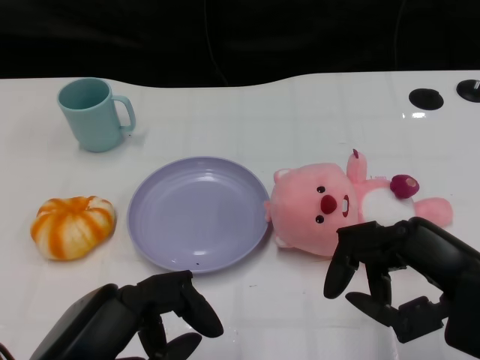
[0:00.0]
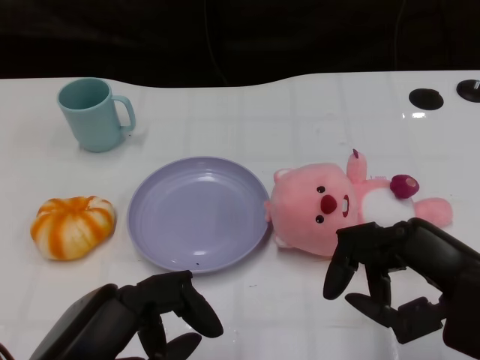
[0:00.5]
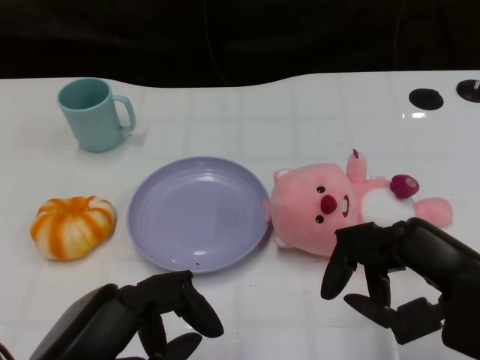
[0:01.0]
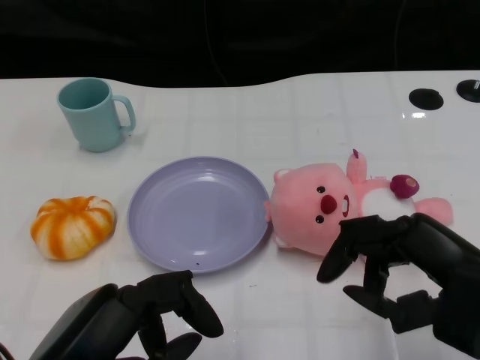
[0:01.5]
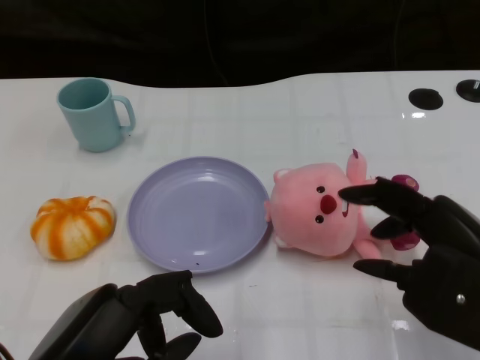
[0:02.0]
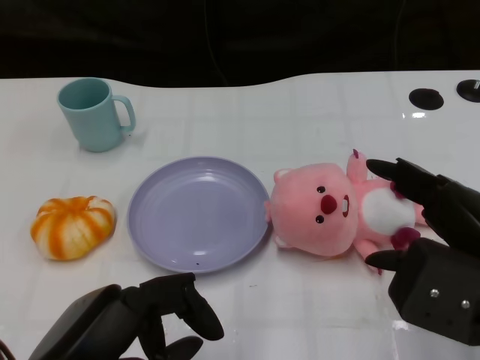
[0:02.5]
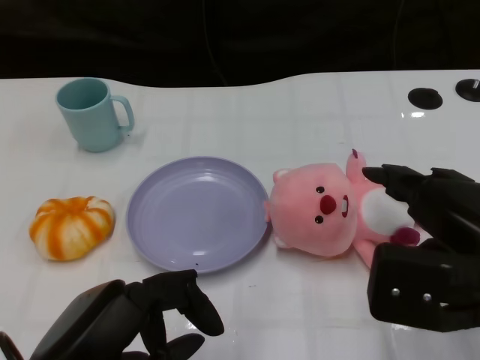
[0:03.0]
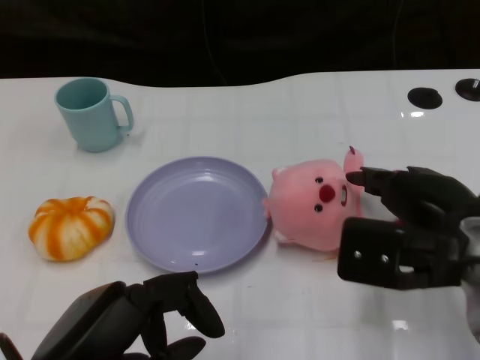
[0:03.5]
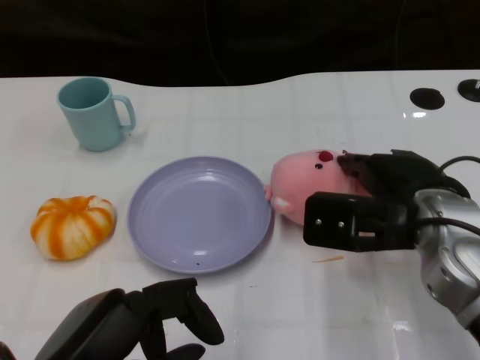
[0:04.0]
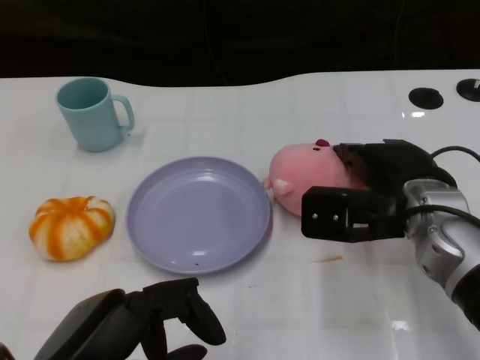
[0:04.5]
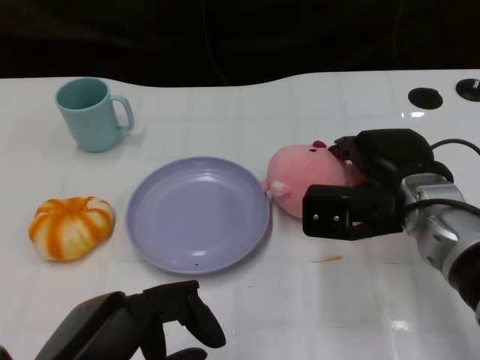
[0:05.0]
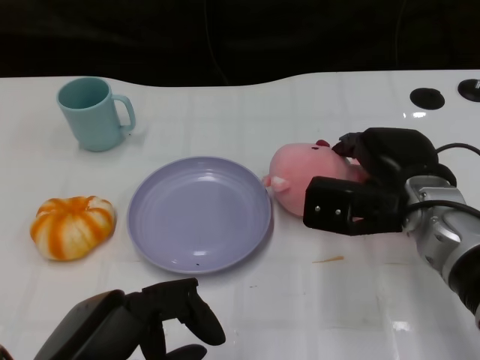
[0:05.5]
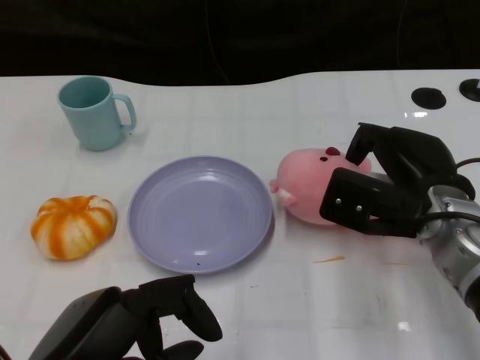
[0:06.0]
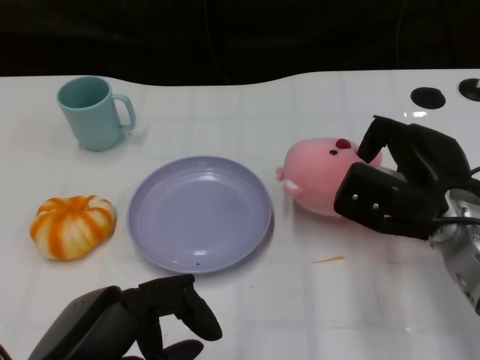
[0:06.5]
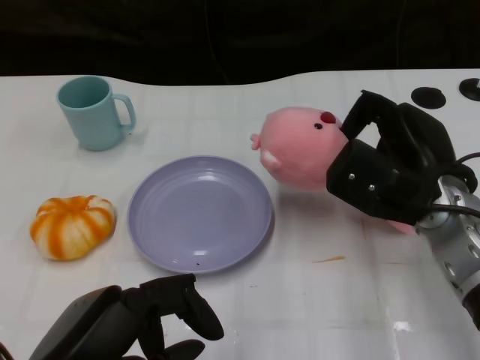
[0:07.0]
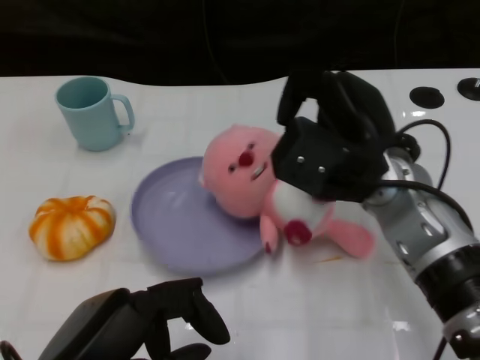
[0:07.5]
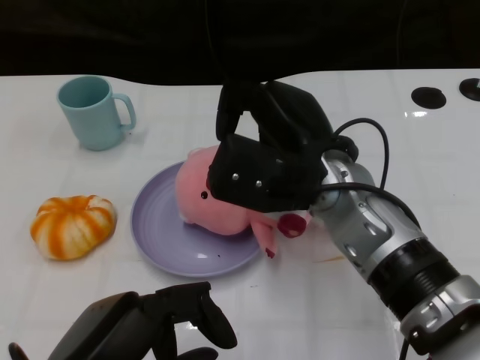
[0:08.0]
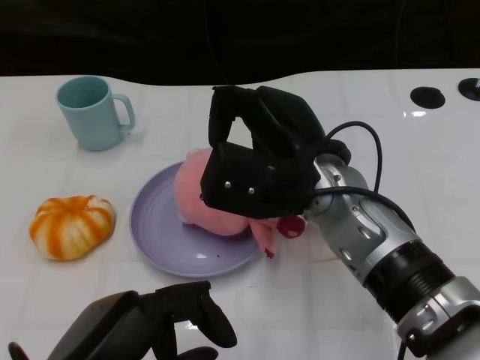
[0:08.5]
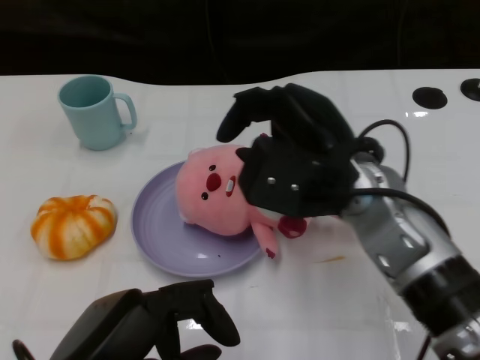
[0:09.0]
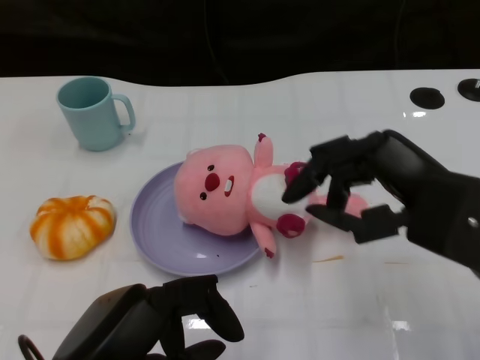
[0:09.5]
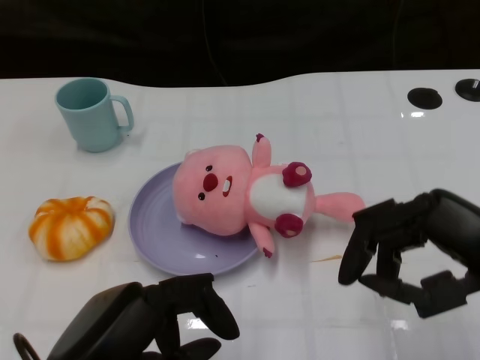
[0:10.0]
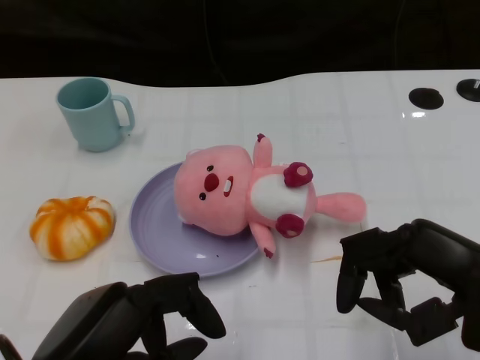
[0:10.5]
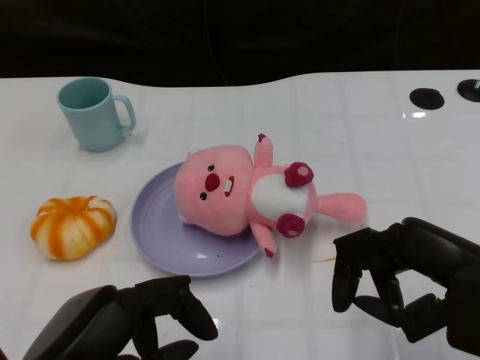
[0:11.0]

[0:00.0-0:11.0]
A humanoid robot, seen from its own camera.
Task of the whole recording: Pick up the doll on the other side of the plate and place it into the plate.
Step, 0:01.5 to 0:06.5: Grasp the pink doll with the right gripper.
Step, 0:07.0 to 0:10.0: Place the pink doll into the plate with the right gripper.
0:02.0 to 0:03.5: The right hand goes about 5 cm forward.
0:03.5 to 0:05.5: The right hand goes approximately 10 cm forward.
0:05.5 to 0:07.5: The right hand is displaced upward by some 5 cm.
0:09.0 to 0:11.0: The right hand travels to the right and backward by some 15 cm.

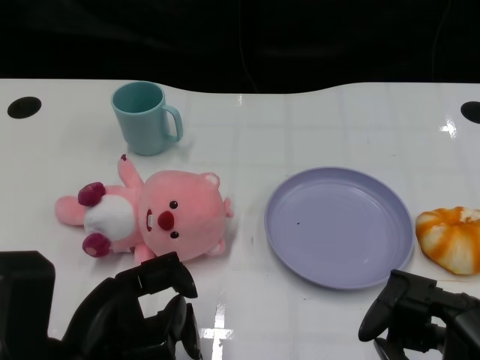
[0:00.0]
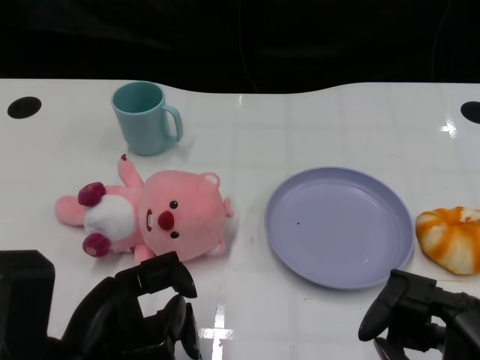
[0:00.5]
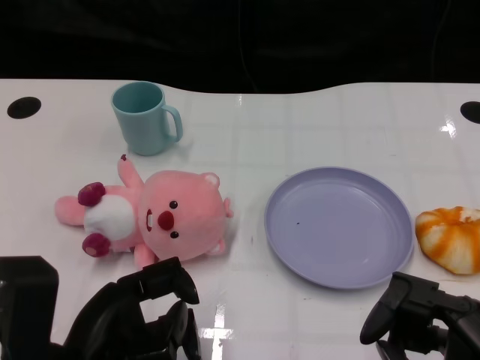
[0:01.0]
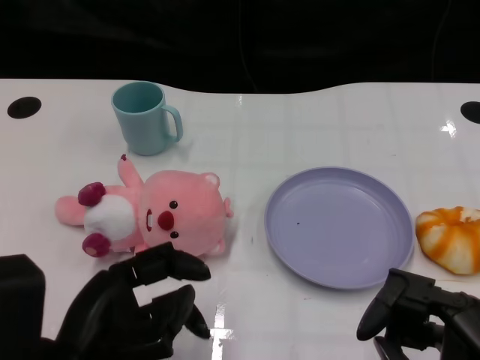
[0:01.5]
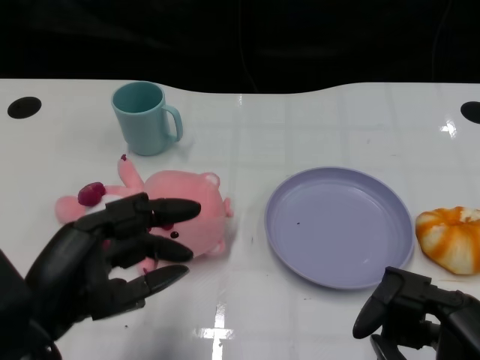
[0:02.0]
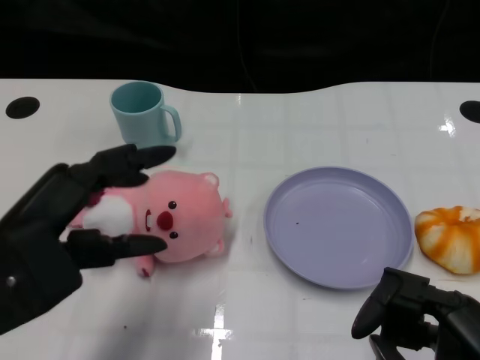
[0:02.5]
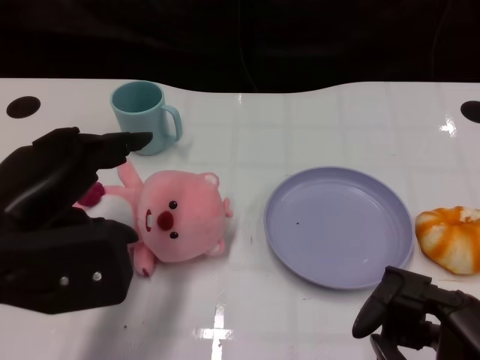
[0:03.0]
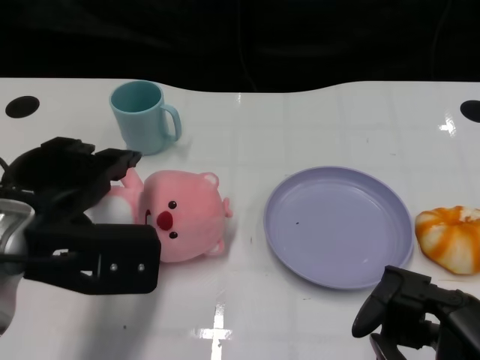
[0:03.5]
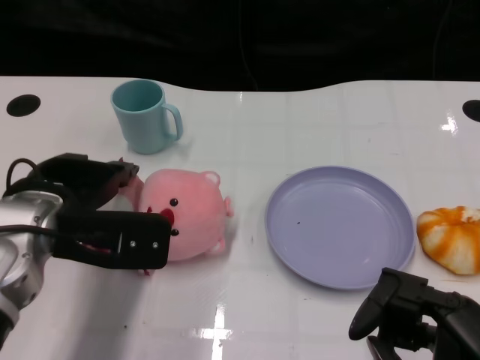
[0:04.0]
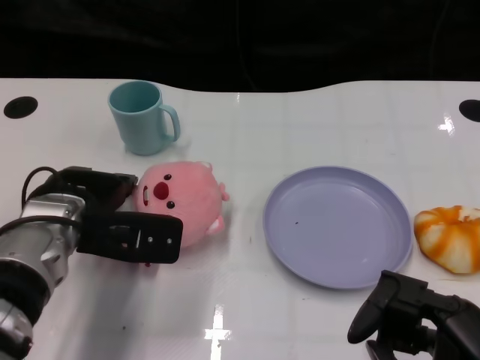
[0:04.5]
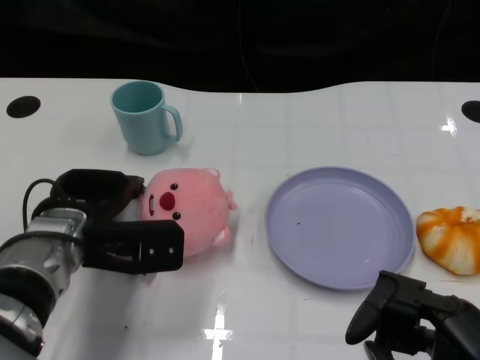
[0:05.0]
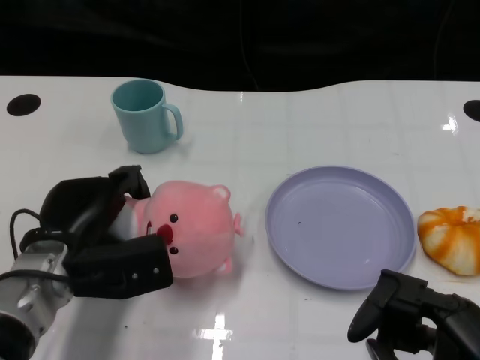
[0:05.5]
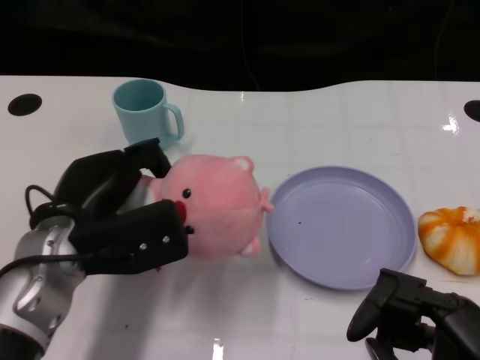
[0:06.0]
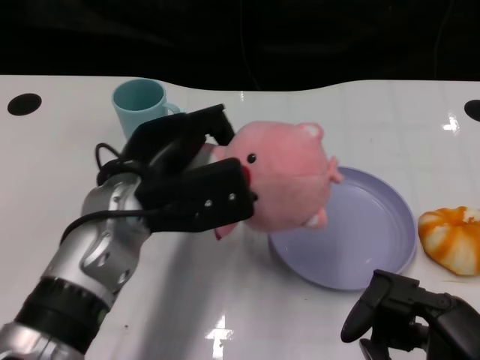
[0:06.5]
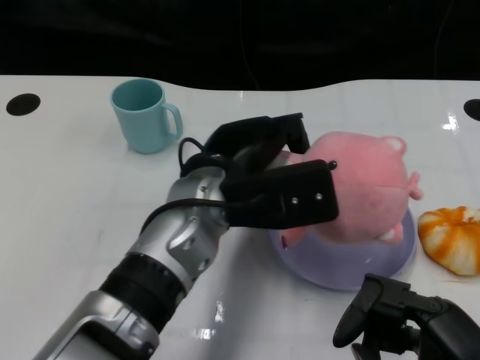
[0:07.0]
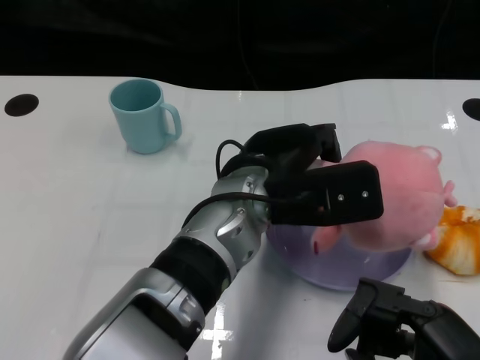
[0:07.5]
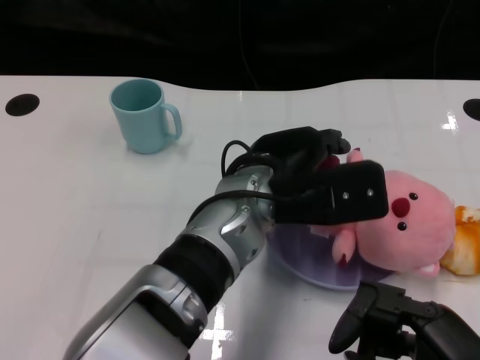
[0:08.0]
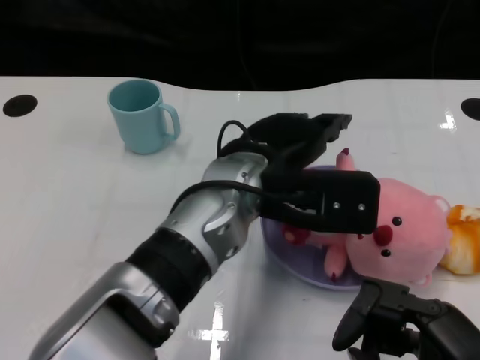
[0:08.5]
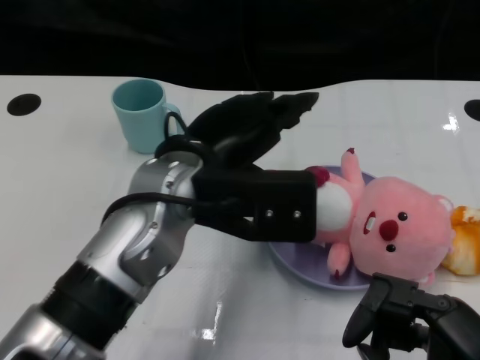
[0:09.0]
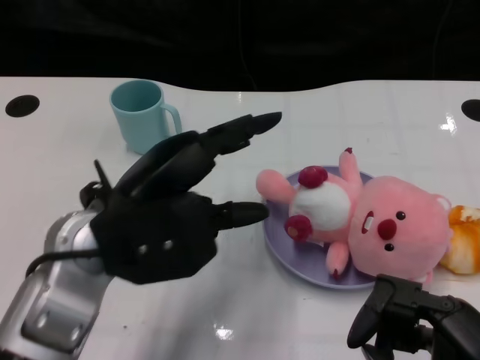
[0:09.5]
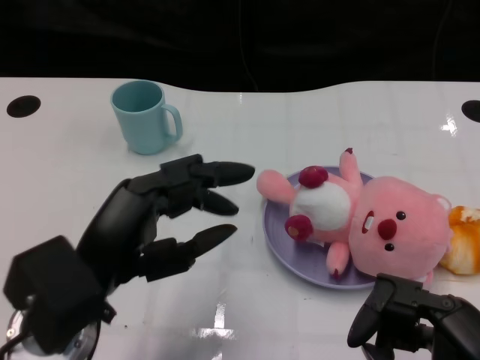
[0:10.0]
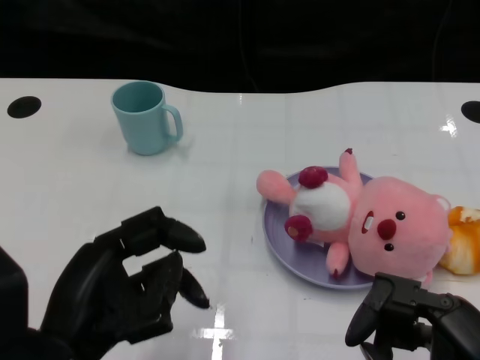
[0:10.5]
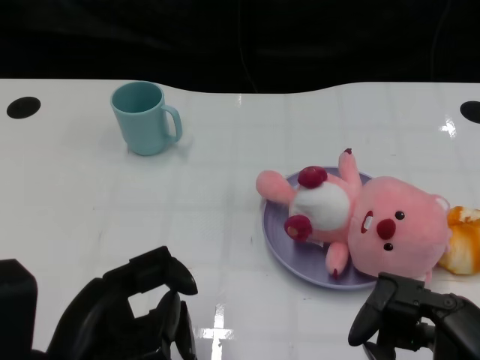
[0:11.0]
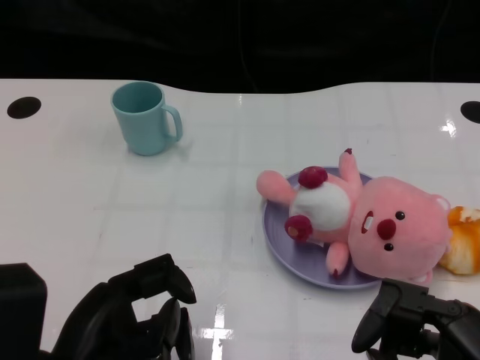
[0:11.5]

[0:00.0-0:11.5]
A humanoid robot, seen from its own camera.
Task of the whole recording: Pick up the doll on one side of the plate and place it into the plate.
Step, 0:01.5 to 0:05.5: Grasp the pink doll with the left gripper.
Step, 0:06.0 to 0:08.0: Place the pink doll into the plate with the left gripper.
0:02.0 to 0:04.0: The left hand moves forward, some 10 cm.
0:06.0 to 0:07.5: The left hand moves to the right, roughly 20 cm.
0:07.5 to 0:09.5: The left hand moves to the left, roughly 15 cm.
0:09.5 to 0:11.5: The left hand travels backward and downward by roughly 15 cm.

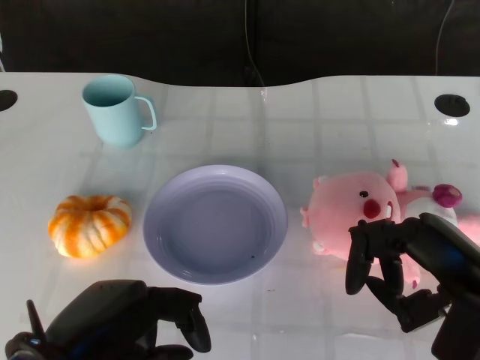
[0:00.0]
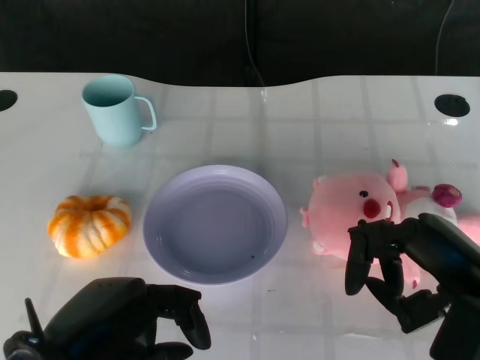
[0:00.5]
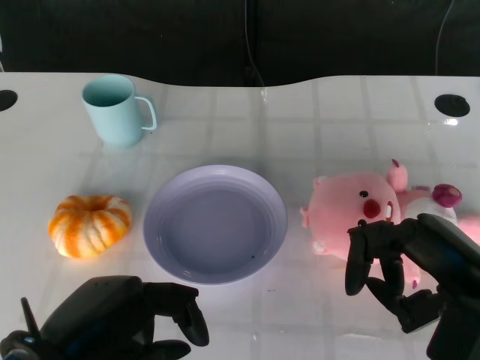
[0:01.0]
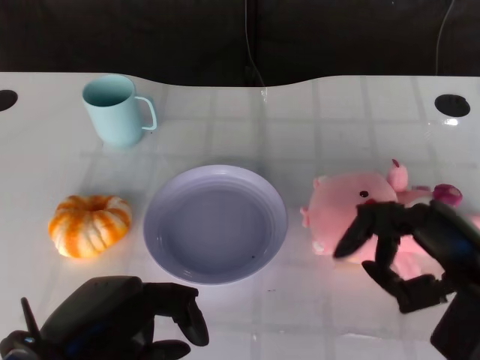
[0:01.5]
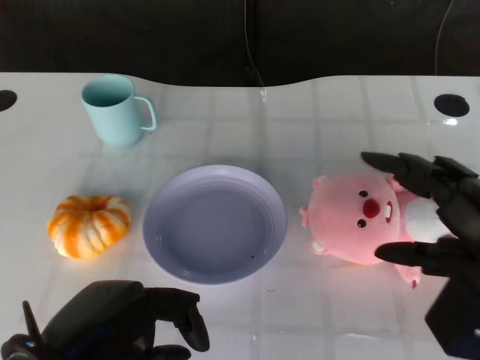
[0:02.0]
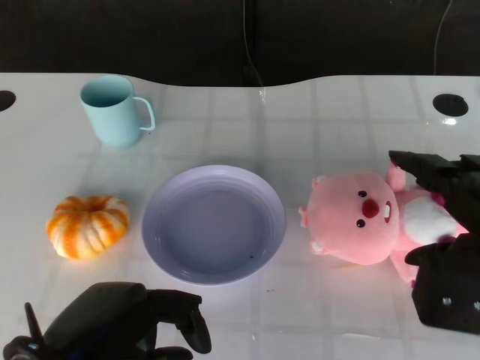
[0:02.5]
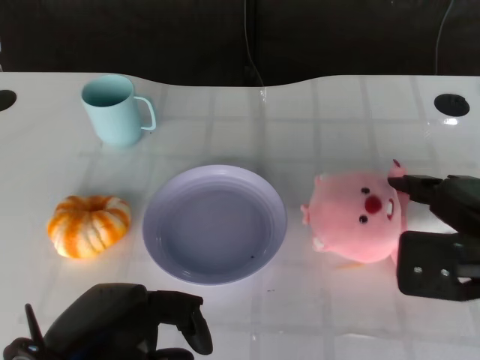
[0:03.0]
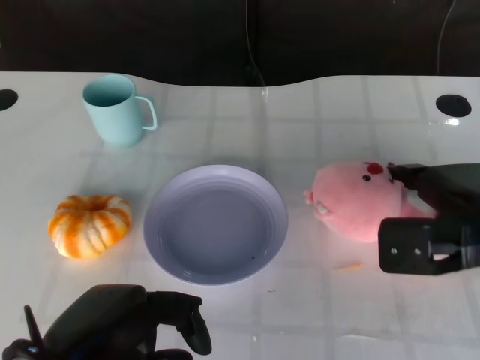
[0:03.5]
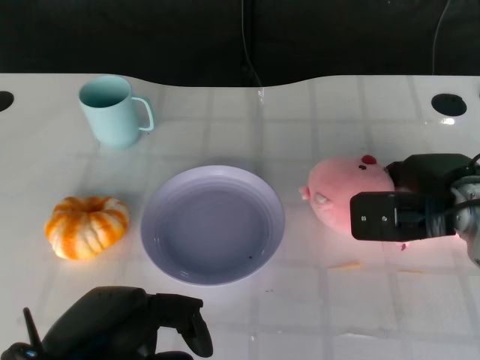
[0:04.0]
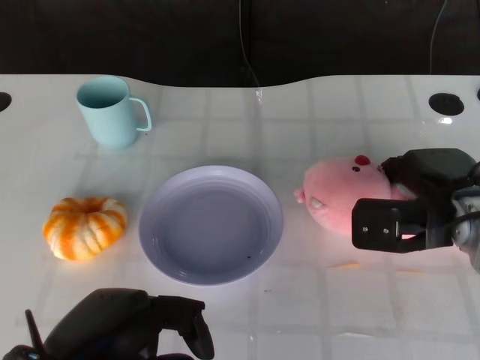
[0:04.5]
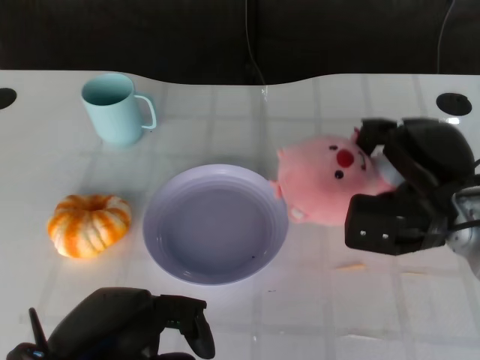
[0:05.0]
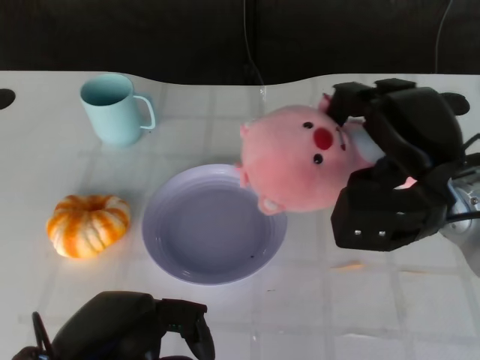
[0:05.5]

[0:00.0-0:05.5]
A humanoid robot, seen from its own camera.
Task of the whole recording: Pick up the doll on the other side of the plate and place it into the plate.
Step, 0:01.5 to 0:05.0: Grasp the pink doll with the right gripper.
0:02.0 to 0:03.5: The right hand heads forward, covering some 10 cm.
0:03.5 to 0:05.5: The right hand travels to the left by some 5 cm.
